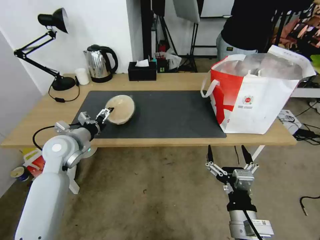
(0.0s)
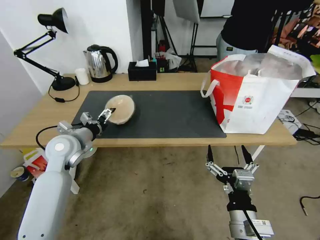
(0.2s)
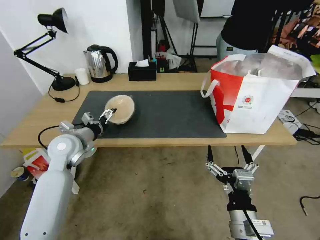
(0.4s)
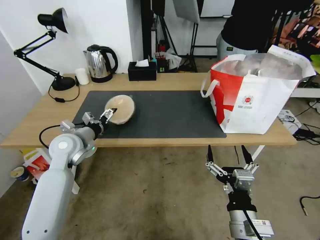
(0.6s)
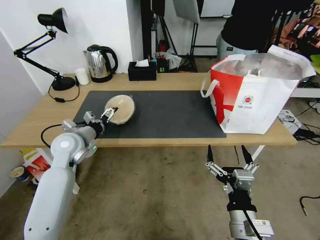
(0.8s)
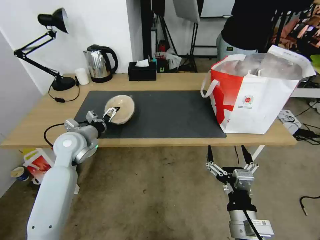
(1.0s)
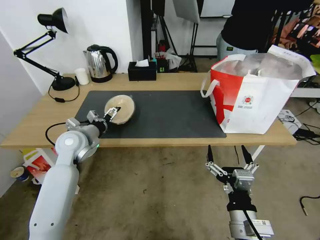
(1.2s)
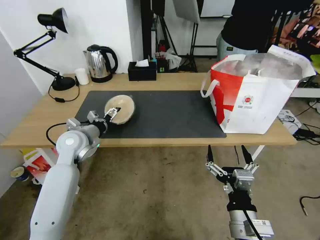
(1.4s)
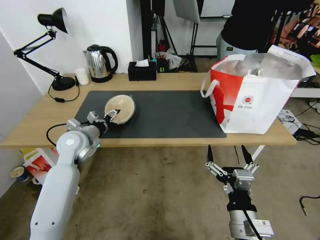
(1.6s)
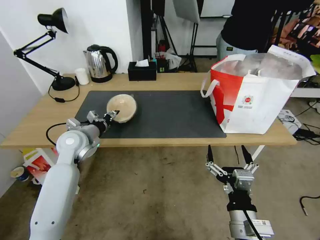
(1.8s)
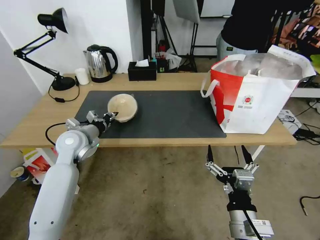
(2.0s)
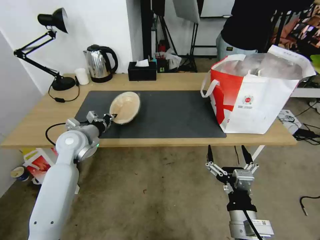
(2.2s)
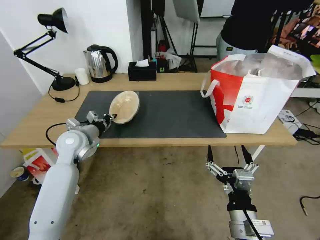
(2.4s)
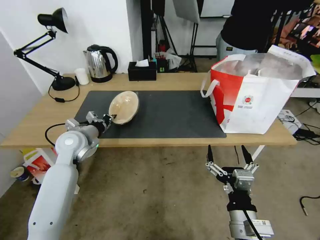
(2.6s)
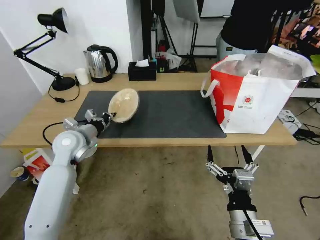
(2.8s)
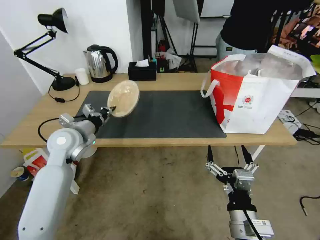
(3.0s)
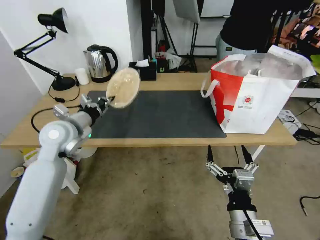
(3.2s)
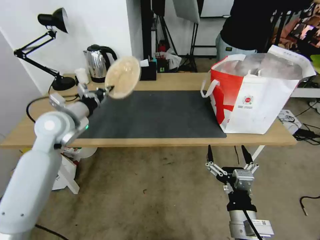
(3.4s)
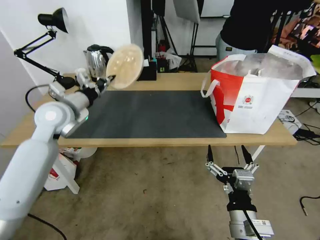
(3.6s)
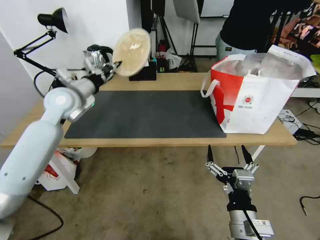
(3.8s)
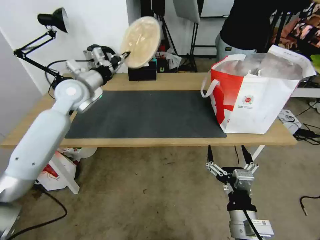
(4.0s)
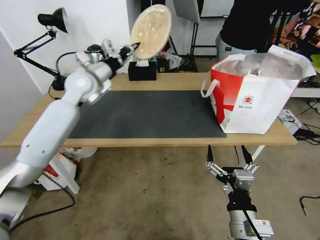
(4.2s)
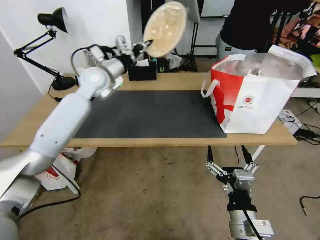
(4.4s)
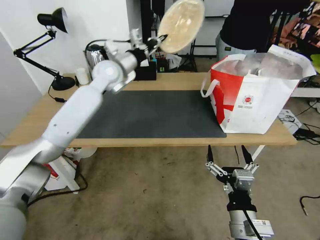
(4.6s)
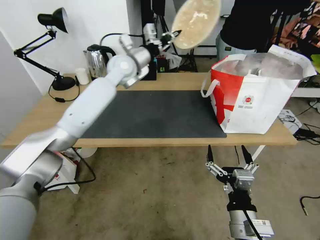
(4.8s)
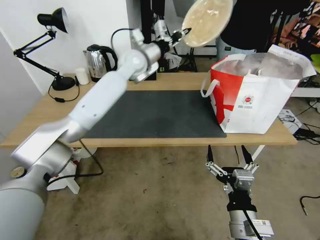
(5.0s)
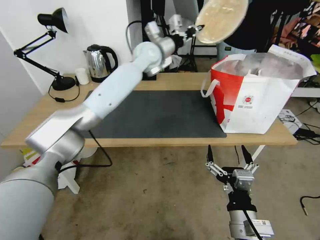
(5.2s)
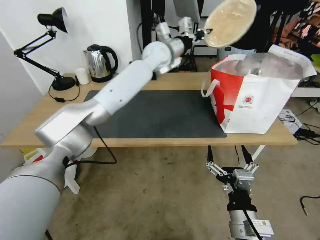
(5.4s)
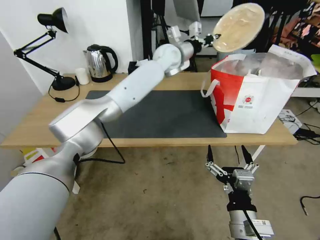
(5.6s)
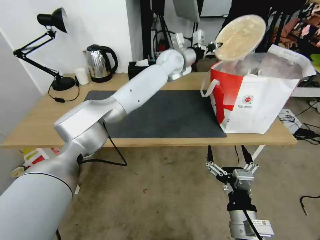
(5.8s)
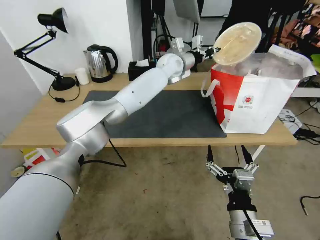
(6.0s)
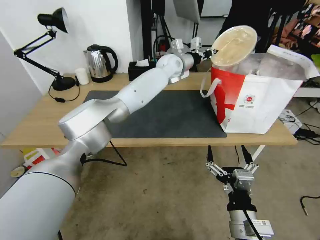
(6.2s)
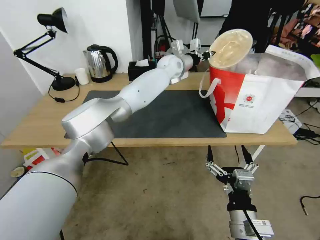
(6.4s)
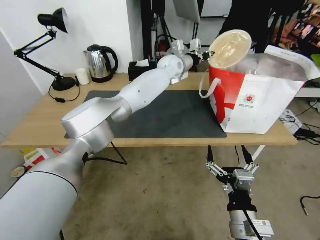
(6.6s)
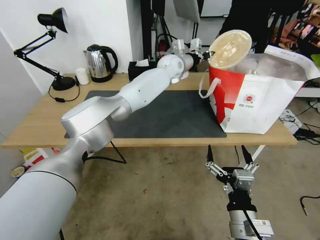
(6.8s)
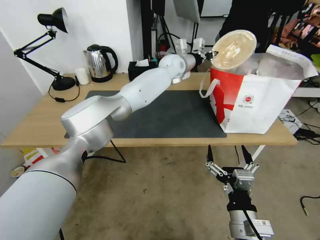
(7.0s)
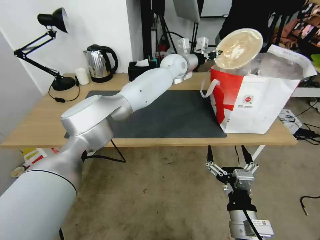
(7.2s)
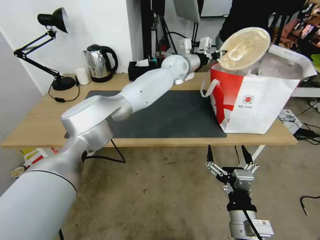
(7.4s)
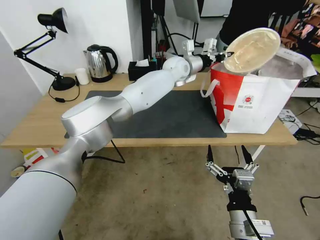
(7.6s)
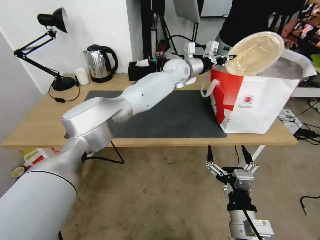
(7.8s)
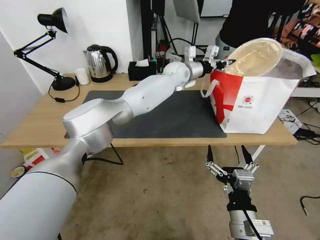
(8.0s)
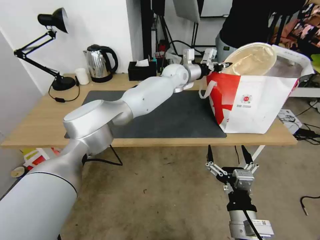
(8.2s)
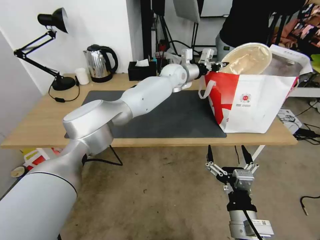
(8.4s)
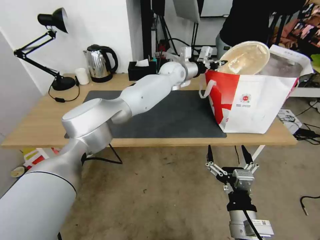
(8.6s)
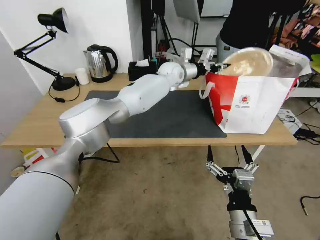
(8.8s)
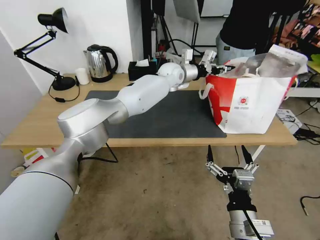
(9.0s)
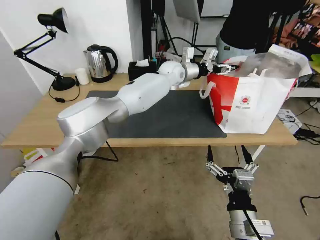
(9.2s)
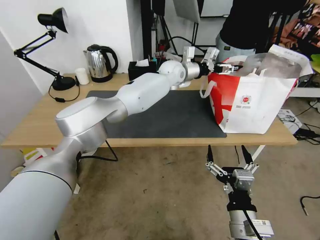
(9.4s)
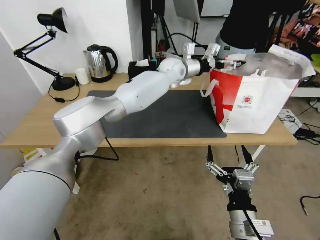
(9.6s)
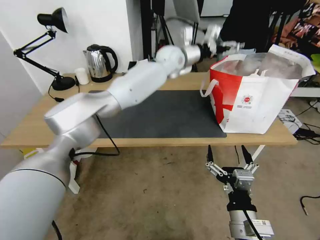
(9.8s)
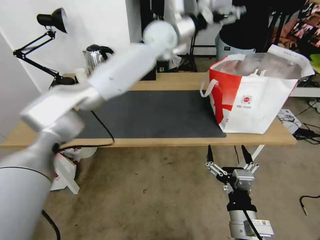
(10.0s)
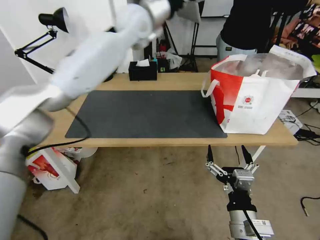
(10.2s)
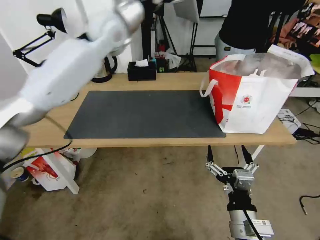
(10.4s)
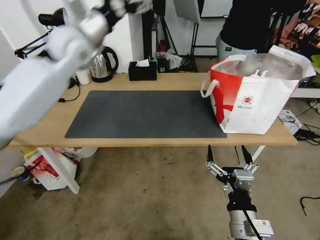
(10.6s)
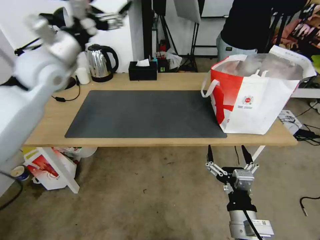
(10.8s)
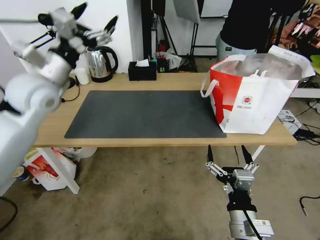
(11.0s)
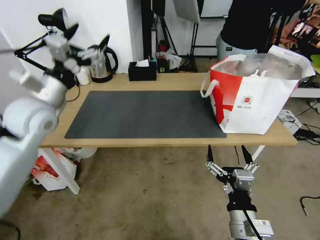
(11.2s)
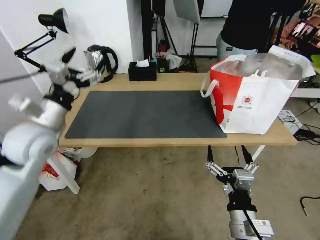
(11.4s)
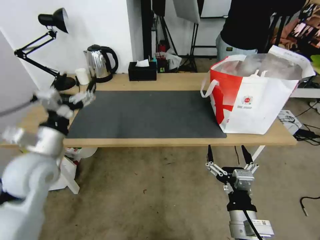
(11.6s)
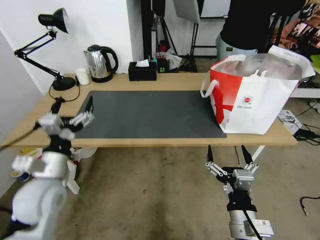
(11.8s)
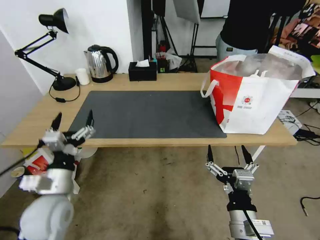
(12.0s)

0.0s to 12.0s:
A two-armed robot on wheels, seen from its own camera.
Task of the whole recording: Pick up the trash from the table and place it into the takeout bag.
0.0s to 1.6s: The grippers make only small movements.
1.6s to 3.0s: The left gripper closes.
3.0s to 4.4s: The left gripper travels forward, upward and to the right by about 20 cm.
4.4s to 6.0s: The left gripper moves to the right and forward, about 25 cm.
6.0s to 7.6s: The grippers make only small movements.
7.6s to 9.0s: The grippers move only a little.
9.0s to 10.4s: The left gripper shifts about 25 cm to the left, upward and backward, and opens.
10.4s to 12.0s: The left gripper travels backward and downward by approximately 50 cm.

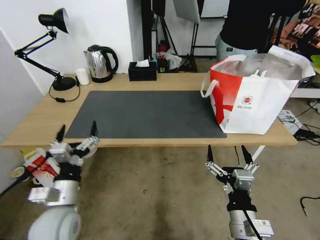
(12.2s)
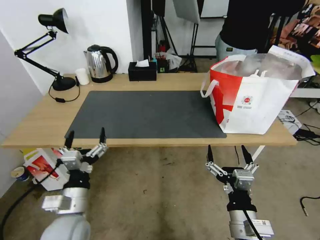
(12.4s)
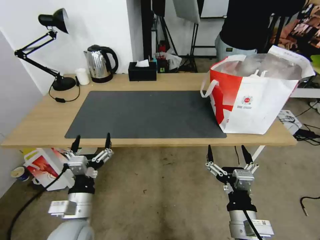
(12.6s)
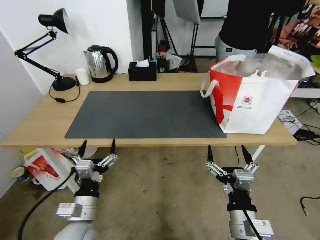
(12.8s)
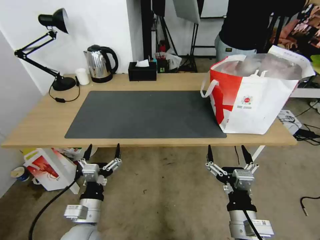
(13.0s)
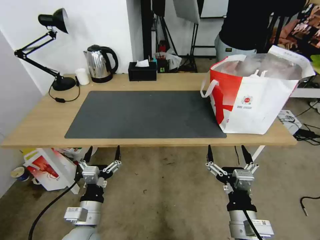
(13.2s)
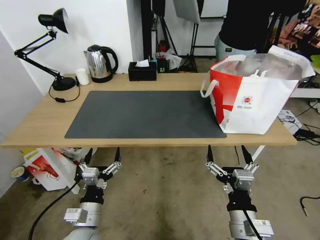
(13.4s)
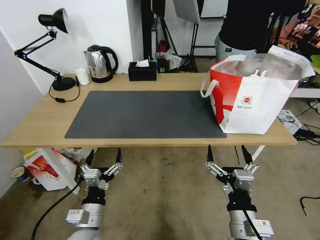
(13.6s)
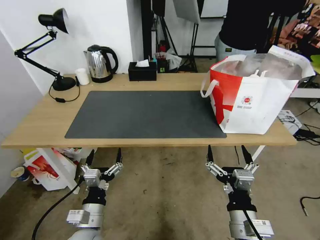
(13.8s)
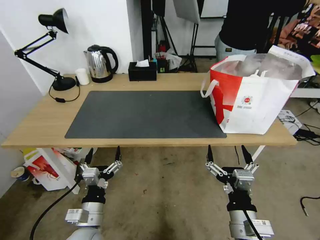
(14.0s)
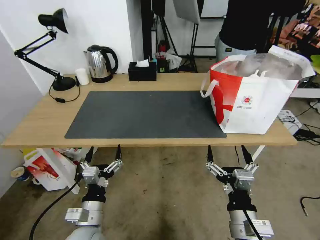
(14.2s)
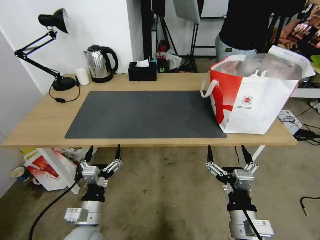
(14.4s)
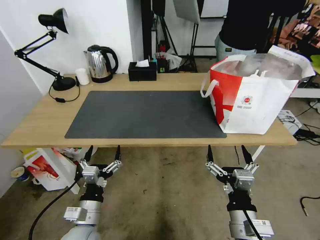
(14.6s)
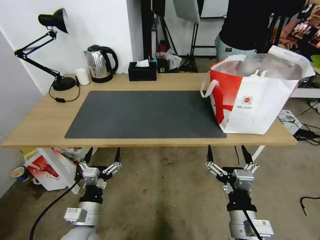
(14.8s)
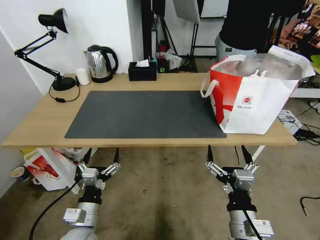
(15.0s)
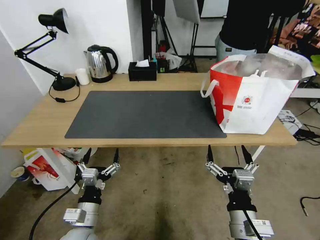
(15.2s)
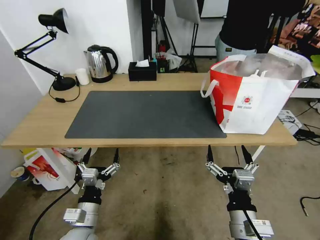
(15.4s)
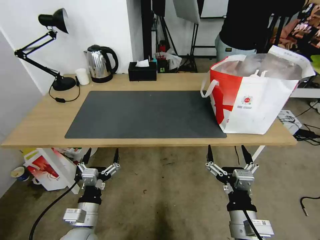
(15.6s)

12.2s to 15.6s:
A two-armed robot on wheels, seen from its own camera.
Task of the whole recording: Pick up the trash from the table and place it into the takeout bag.
12.2s to 13.8s: The left gripper is displaced downward and to the right by about 10 cm.
13.8s to 15.6s: The grippers make only small movements.
